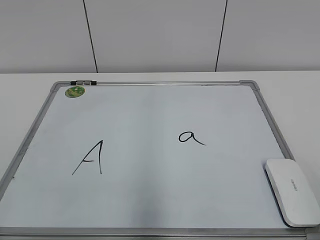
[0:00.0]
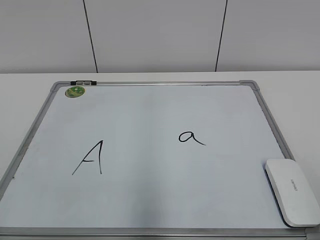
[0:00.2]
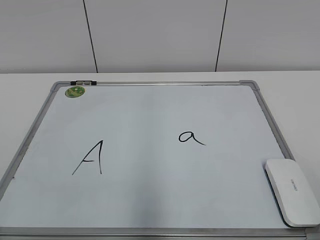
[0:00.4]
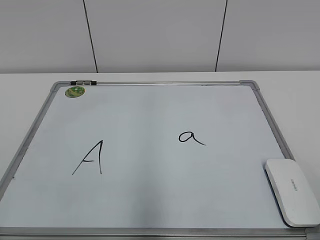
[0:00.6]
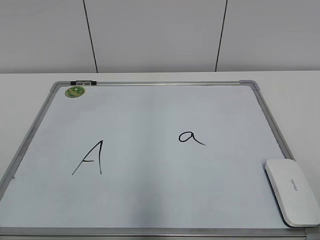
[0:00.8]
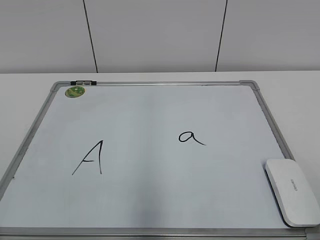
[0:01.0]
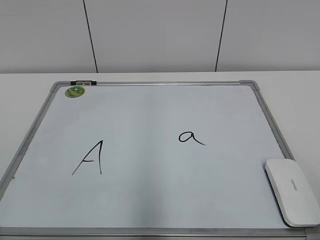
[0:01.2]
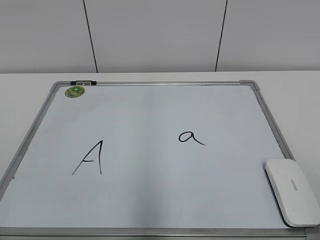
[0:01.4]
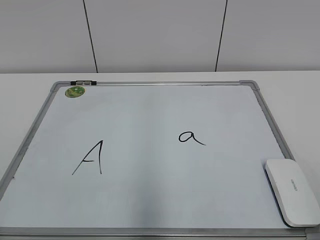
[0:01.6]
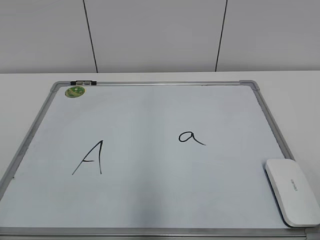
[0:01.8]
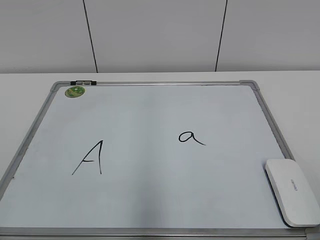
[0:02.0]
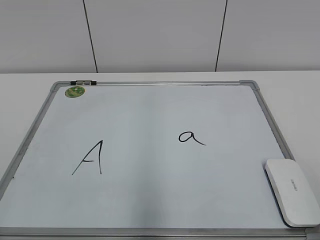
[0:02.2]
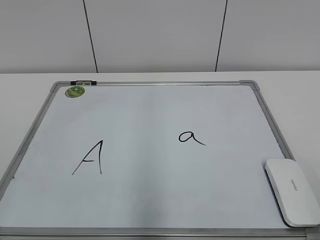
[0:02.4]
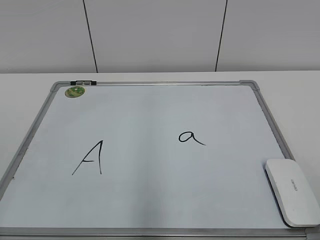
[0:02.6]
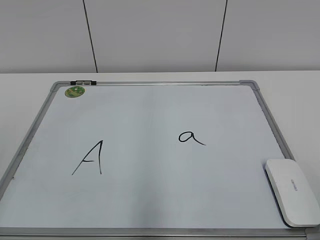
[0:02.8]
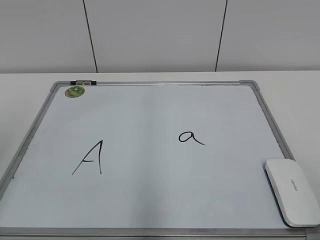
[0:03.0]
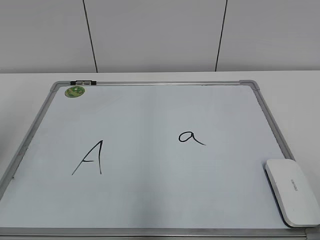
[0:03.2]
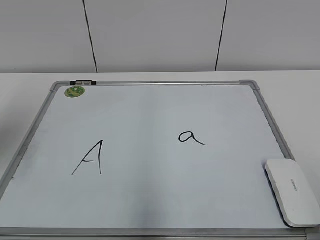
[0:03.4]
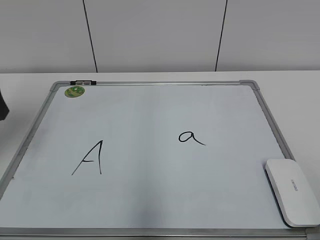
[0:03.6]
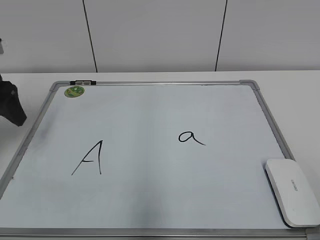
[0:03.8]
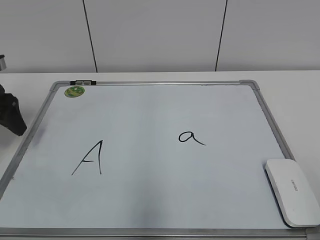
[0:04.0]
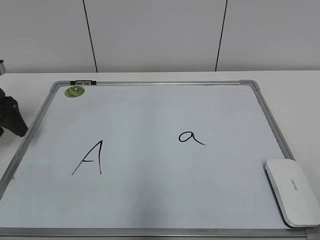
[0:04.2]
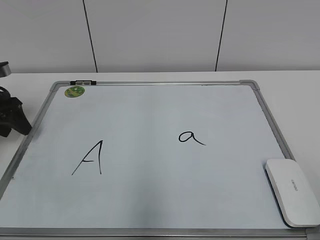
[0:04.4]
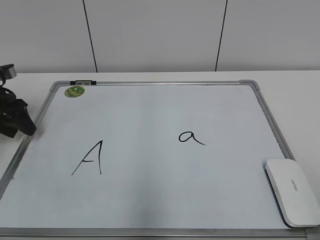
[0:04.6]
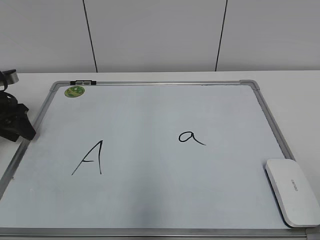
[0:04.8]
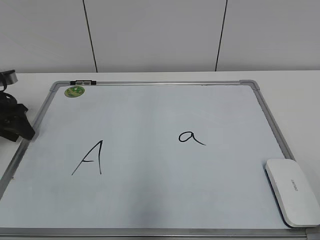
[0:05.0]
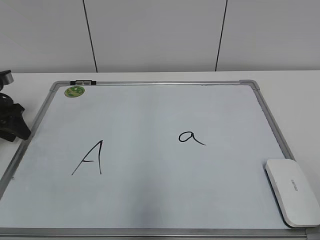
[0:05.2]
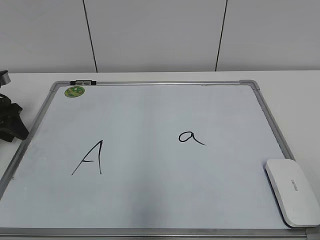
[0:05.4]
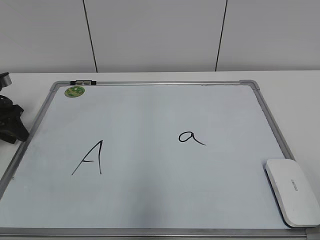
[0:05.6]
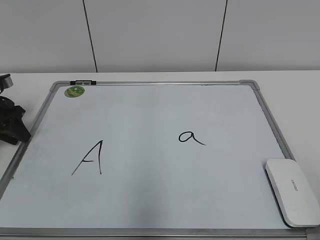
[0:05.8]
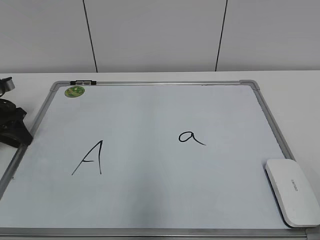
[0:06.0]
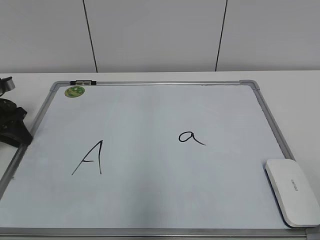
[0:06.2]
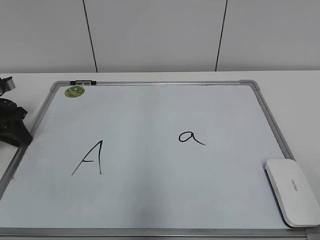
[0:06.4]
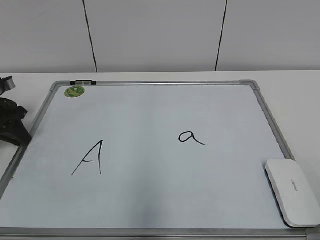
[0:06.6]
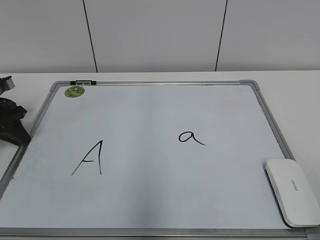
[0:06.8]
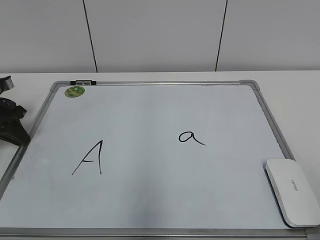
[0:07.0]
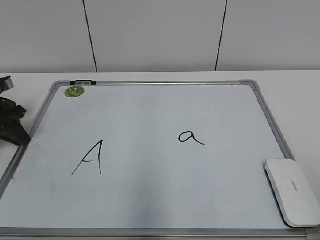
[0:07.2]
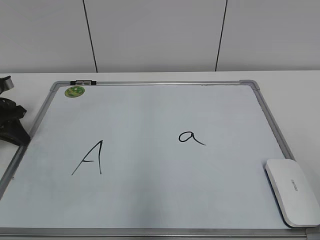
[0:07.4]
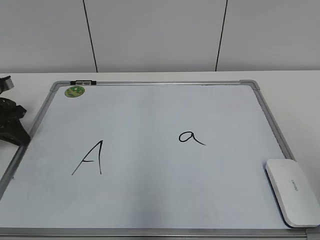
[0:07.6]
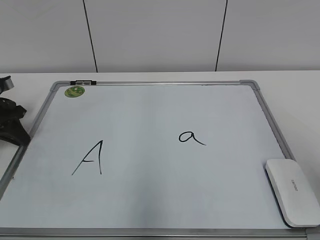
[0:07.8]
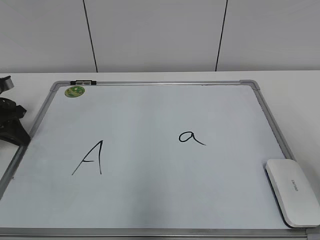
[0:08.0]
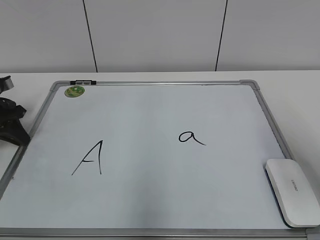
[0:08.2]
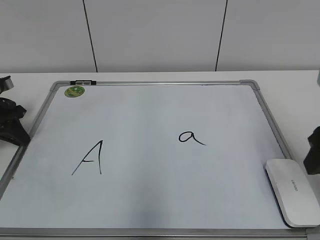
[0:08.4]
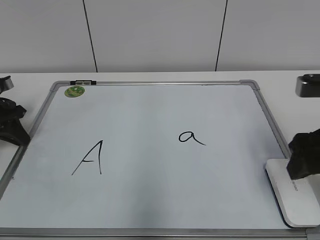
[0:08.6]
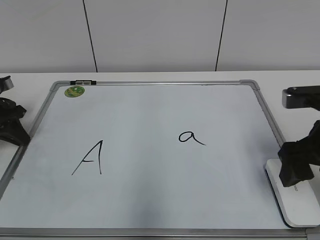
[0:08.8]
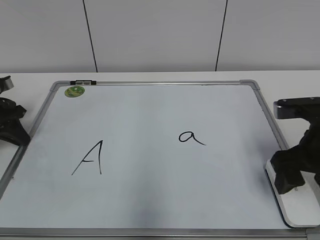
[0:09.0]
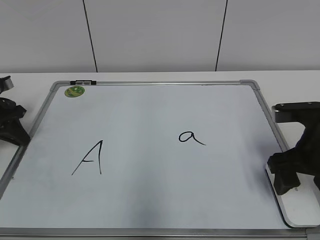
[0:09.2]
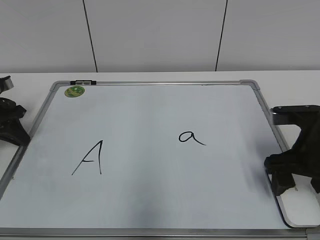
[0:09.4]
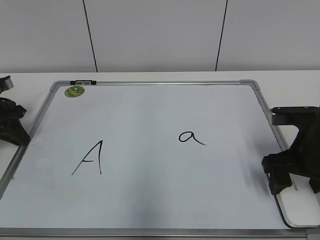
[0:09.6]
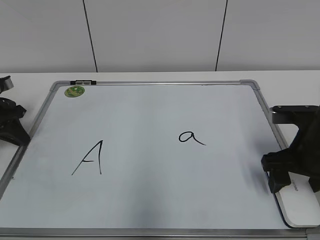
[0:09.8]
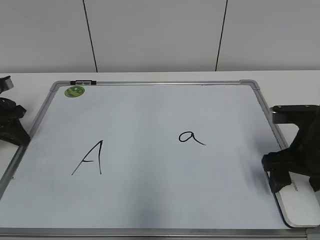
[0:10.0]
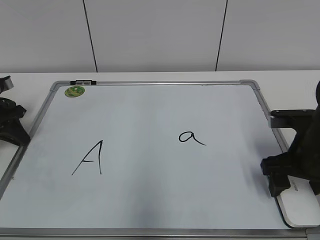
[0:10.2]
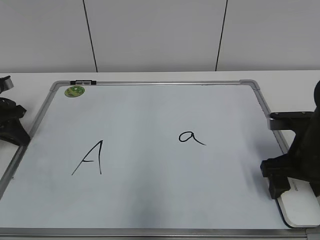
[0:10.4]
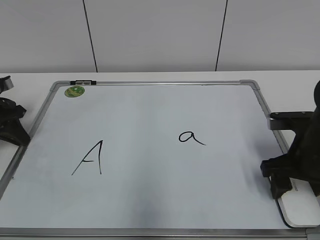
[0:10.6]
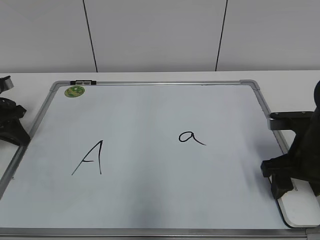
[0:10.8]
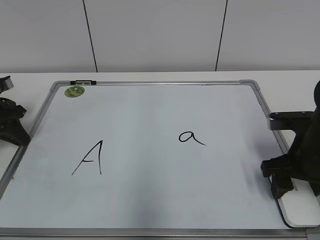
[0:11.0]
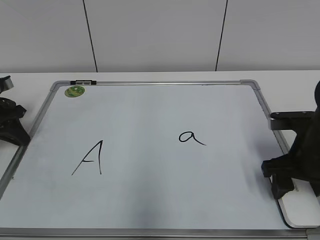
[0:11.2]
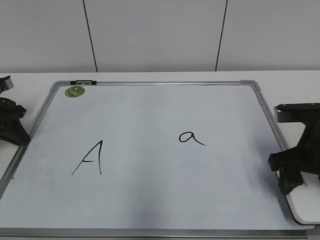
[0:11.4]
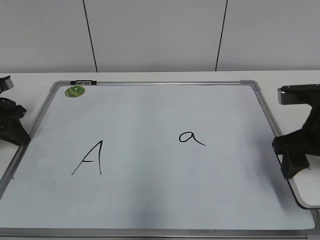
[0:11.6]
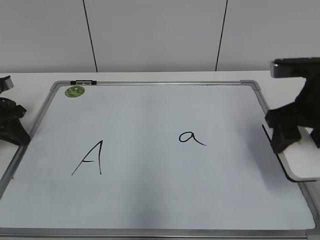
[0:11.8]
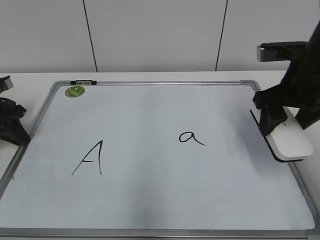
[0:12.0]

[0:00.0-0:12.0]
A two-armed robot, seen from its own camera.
Task of the whole recording: pick up the eraser on the blackboard and erase the letter "a".
Step, 0:00.0 to 0:06.6: Hold the drawing board steady with your left hand.
Step, 0:06.8 to 0:11.0: Grab the eraser with your right hand.
0:03.0 to 0:04.4: The left gripper shifts approximately 30 cm forward and downward.
0:04.4 to 0:06.0: The left gripper closes up.
0:07.6 to 0:09.0: The right gripper heads forward and downward, covering about 25 cm, and opens up.
0:09.0 to 0:10.4: The grippers stay close to where they were, moving slightly.
0:10.4 to 0:12.0: The right gripper shifts roughly 10 cm upward, and closes its fingers.

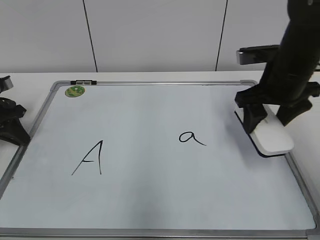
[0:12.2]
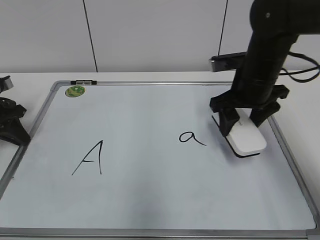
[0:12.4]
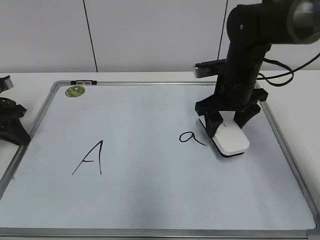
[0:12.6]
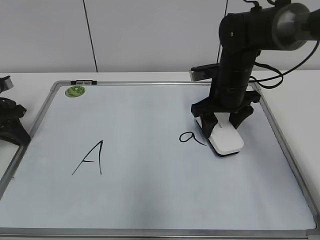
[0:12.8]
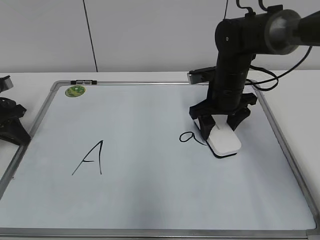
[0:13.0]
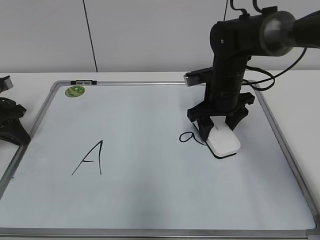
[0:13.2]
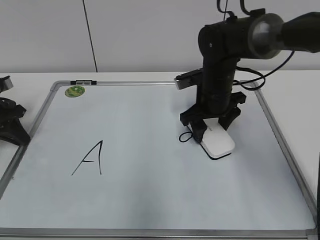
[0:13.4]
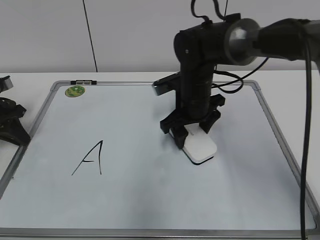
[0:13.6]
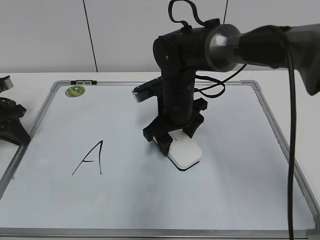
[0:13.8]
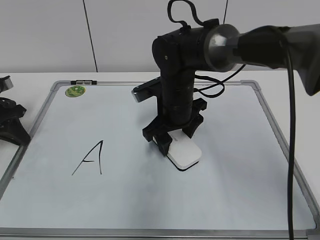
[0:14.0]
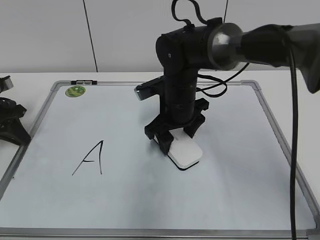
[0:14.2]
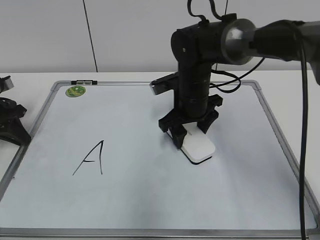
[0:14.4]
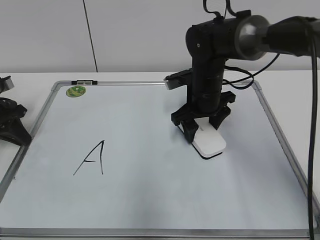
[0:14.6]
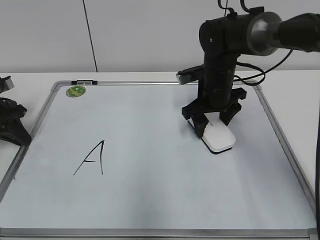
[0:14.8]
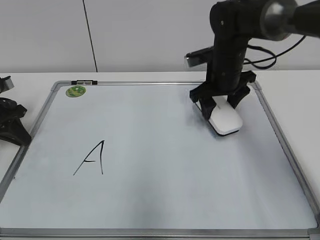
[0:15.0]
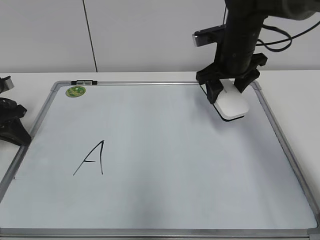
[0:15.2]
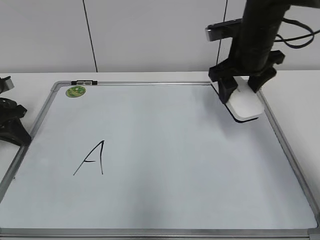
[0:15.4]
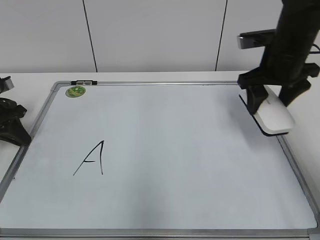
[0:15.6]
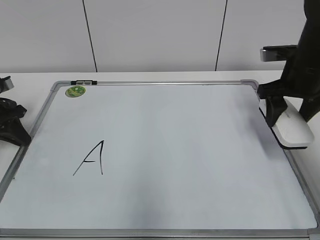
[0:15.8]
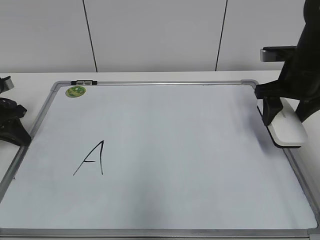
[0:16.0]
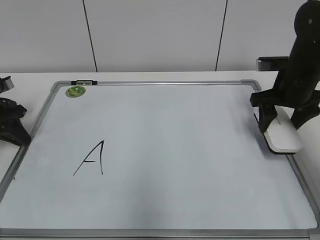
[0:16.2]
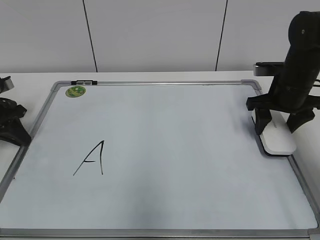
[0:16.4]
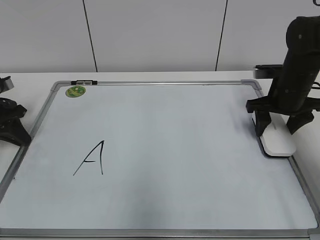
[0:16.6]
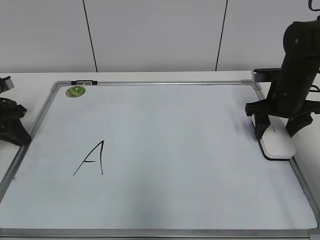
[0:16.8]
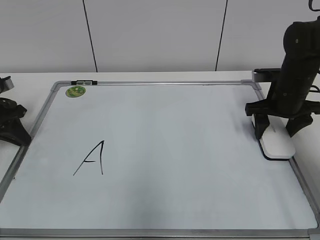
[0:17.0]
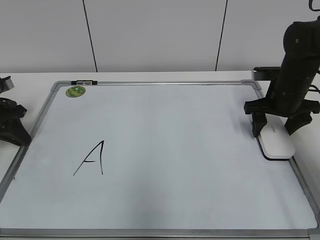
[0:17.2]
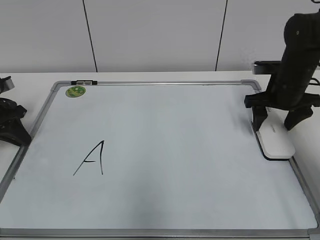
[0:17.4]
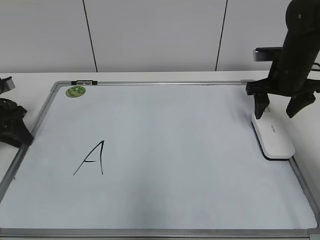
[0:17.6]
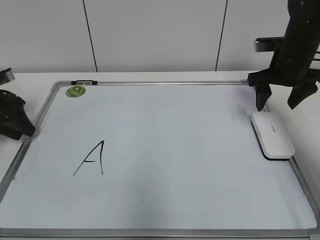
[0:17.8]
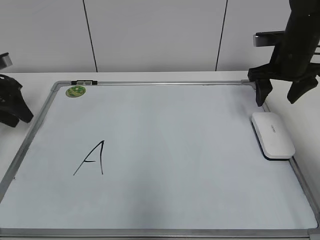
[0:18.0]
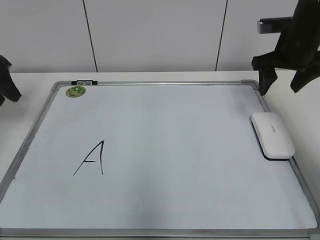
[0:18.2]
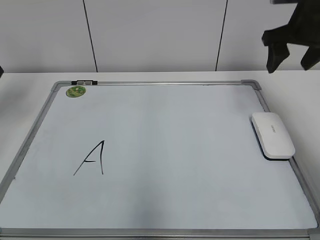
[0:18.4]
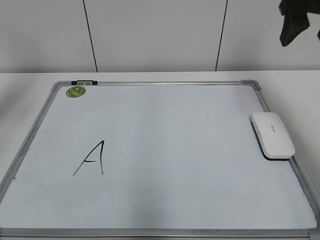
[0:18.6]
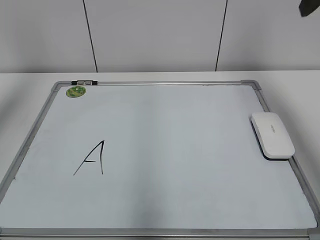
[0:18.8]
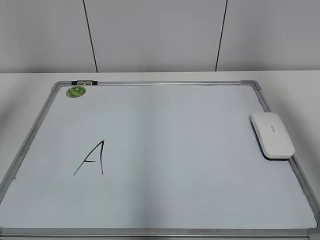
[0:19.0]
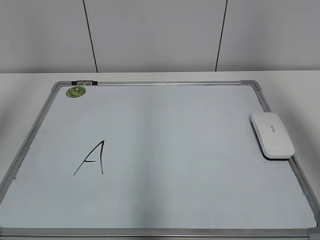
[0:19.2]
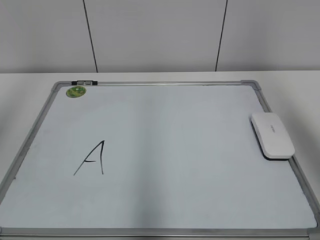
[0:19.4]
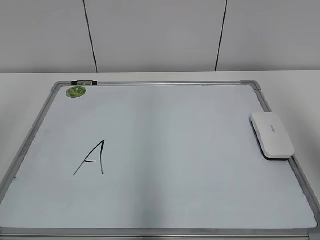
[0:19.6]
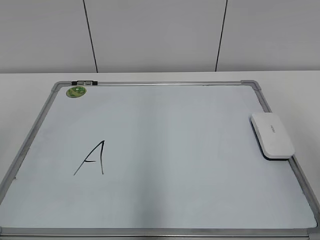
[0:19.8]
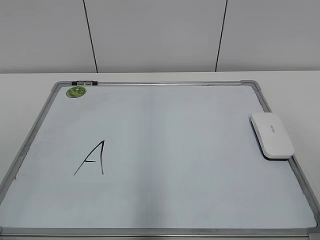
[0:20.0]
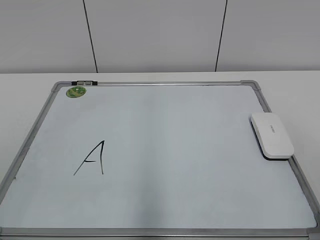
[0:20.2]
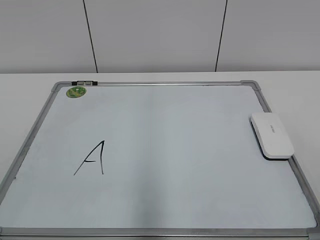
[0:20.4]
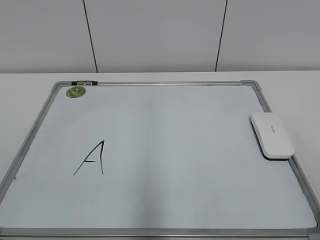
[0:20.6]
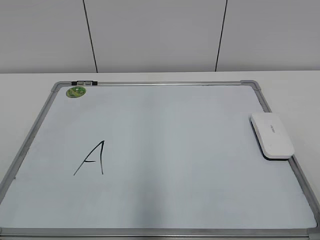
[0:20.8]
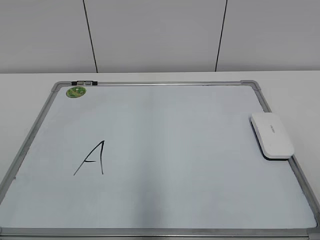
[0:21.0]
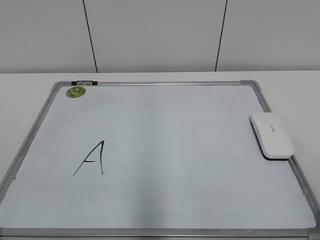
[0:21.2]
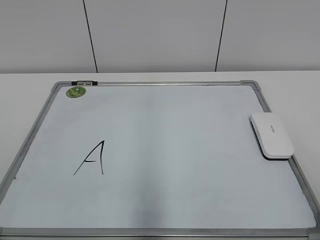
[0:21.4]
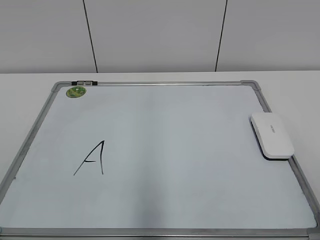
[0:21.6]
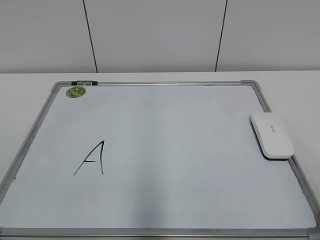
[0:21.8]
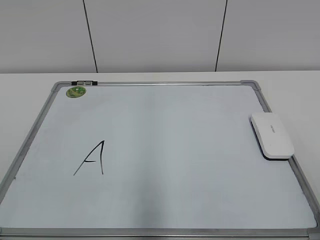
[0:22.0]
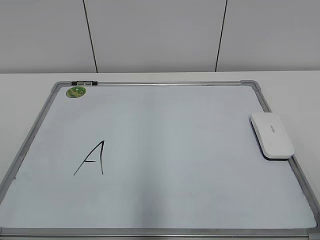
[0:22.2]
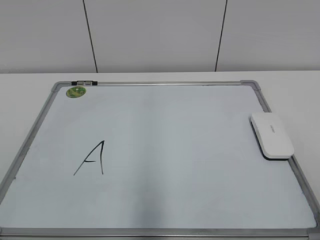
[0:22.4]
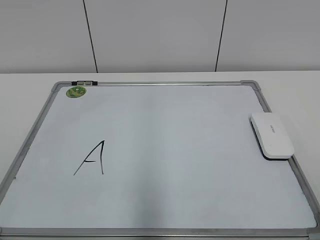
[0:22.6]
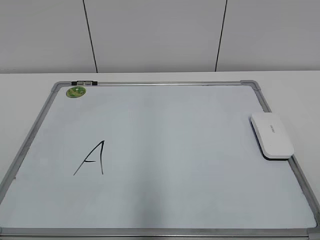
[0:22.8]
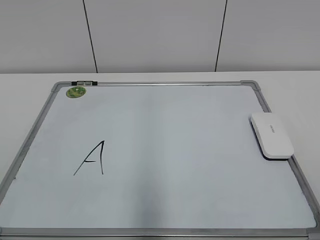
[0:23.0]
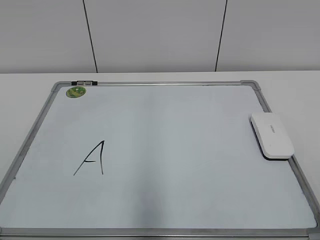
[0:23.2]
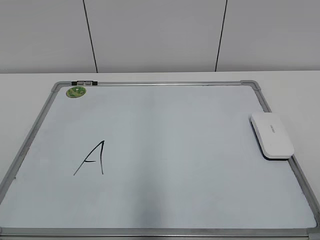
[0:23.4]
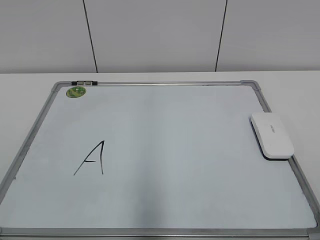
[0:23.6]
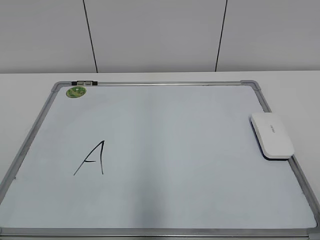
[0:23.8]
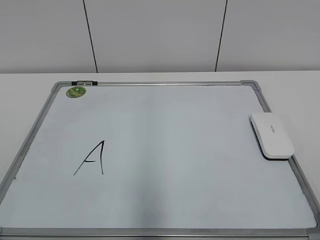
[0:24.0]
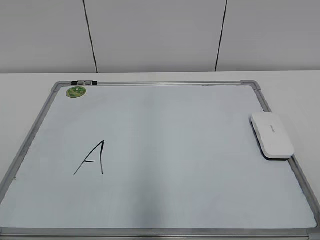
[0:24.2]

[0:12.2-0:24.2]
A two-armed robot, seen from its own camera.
Task of the whole recording: pick up the eraser on the blackboard and erase the letter "a".
Step, 0:12.2 to 0:14.6: Erase the letter a with your right hand.
Step, 0:14.8 to 0:16.8: Put down the eraser with your right hand.
0:12.2 to 0:13.8: The right gripper heads to the left and downward, covering approximately 20 cm.
0:13.8 to 0:15.2: The right gripper moves to the right, upward and forward, about 15 cm.
0:15.2 to 0:16.6: The right gripper travels to the right and downward by about 10 cm.
0:16.6 to 0:18.2: The grippers both shift upward by some 10 cm. The left gripper opens up; the right gripper opens.
0:18.2 to 0:19.8: Both grippers travel together backward and upward, approximately 40 cm.
